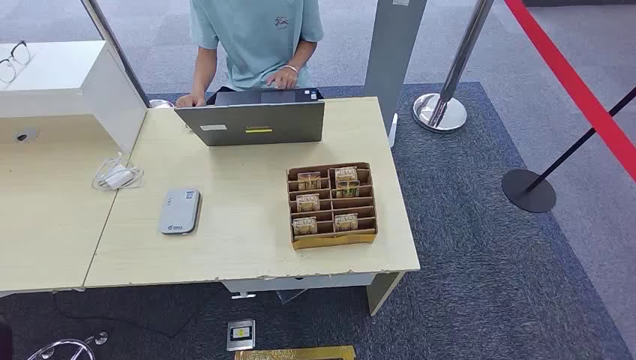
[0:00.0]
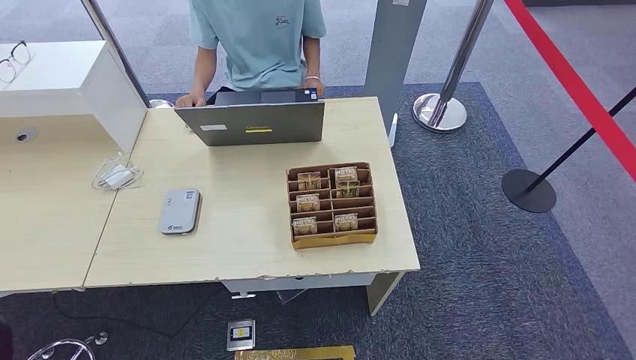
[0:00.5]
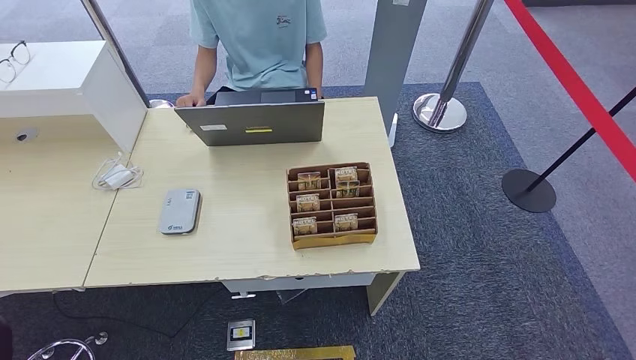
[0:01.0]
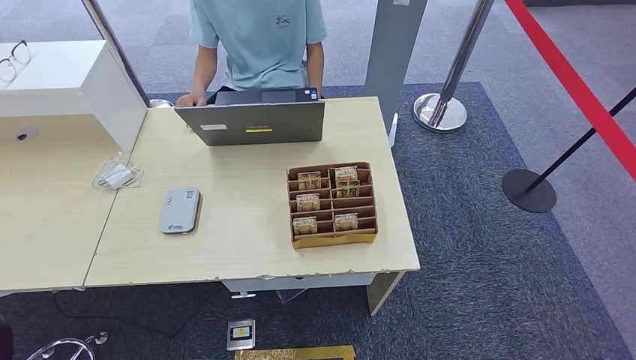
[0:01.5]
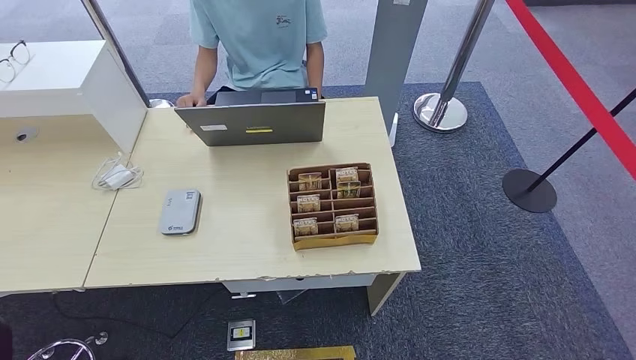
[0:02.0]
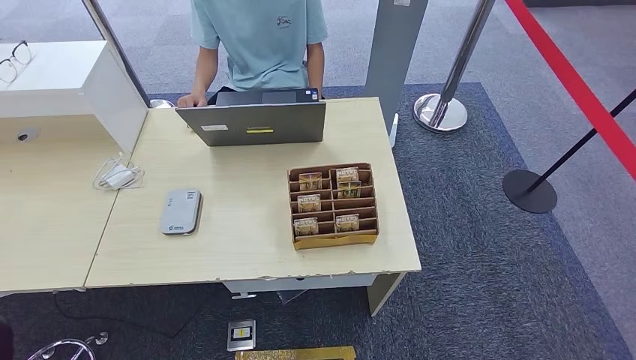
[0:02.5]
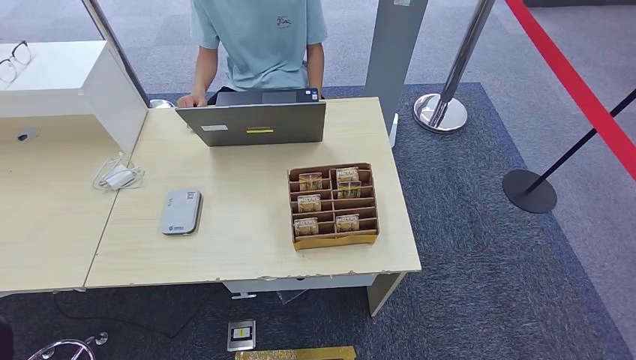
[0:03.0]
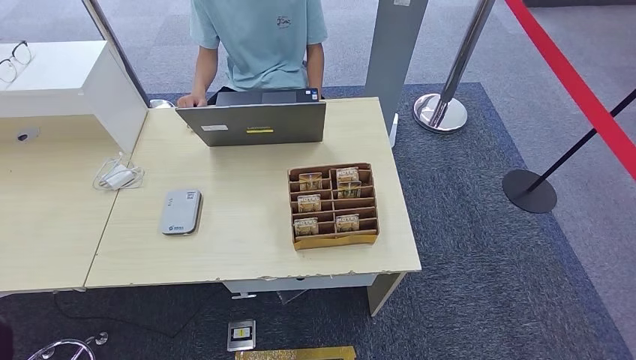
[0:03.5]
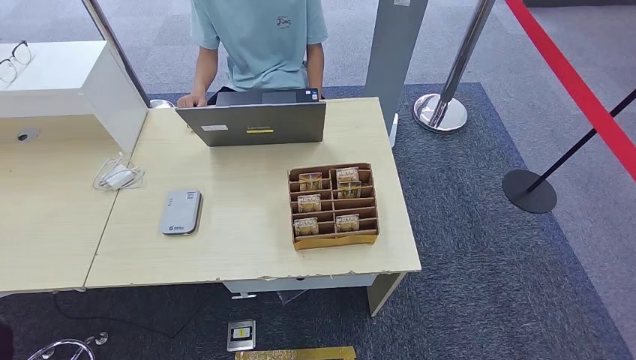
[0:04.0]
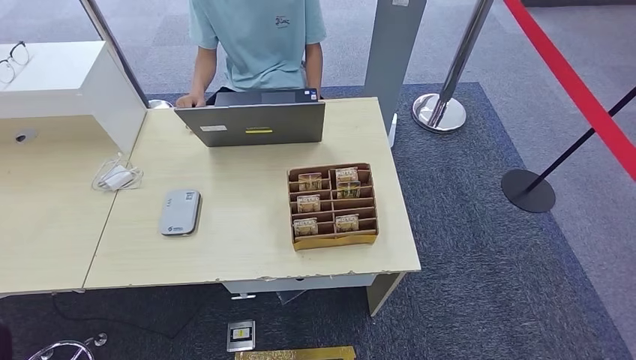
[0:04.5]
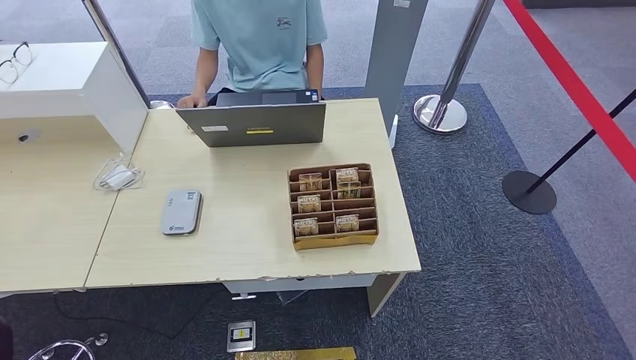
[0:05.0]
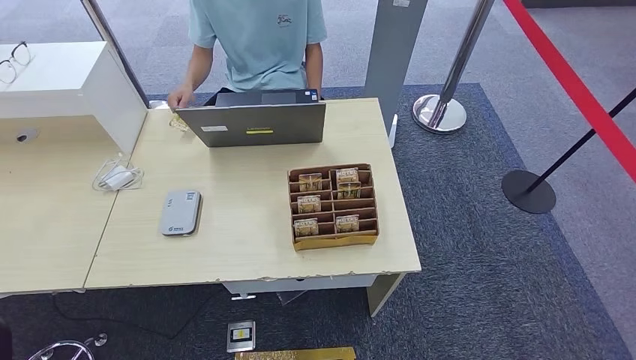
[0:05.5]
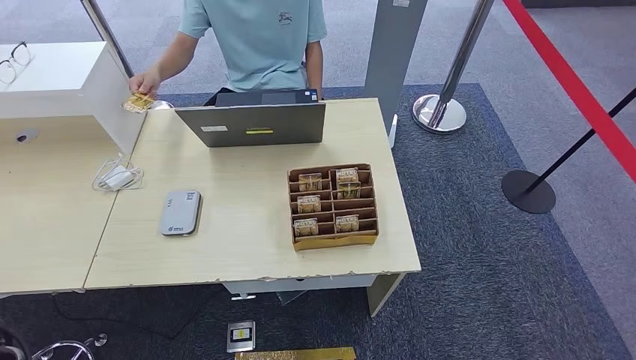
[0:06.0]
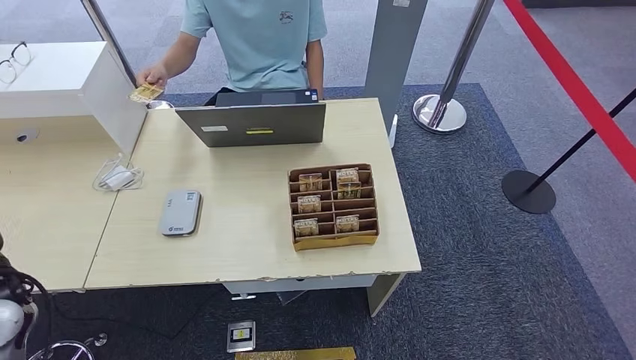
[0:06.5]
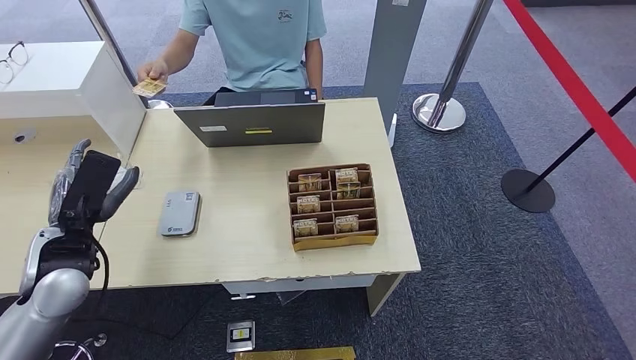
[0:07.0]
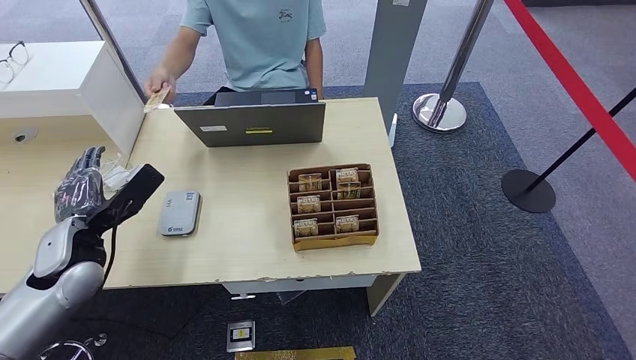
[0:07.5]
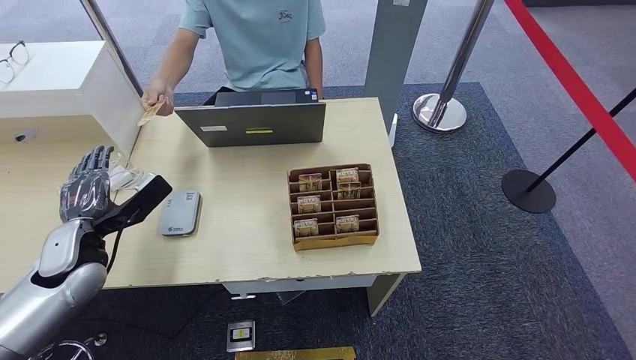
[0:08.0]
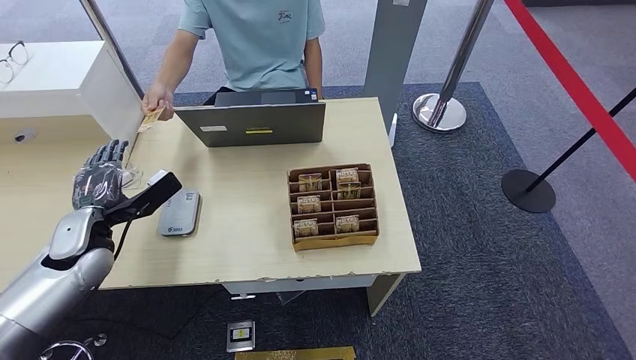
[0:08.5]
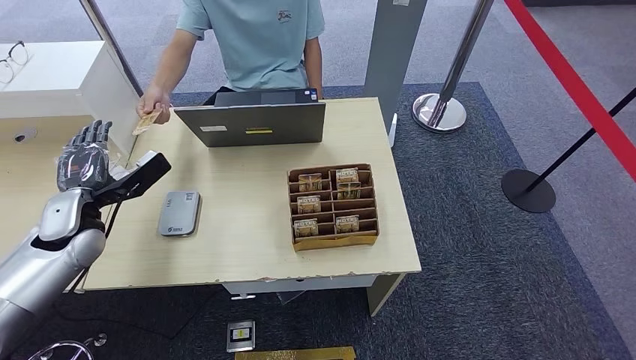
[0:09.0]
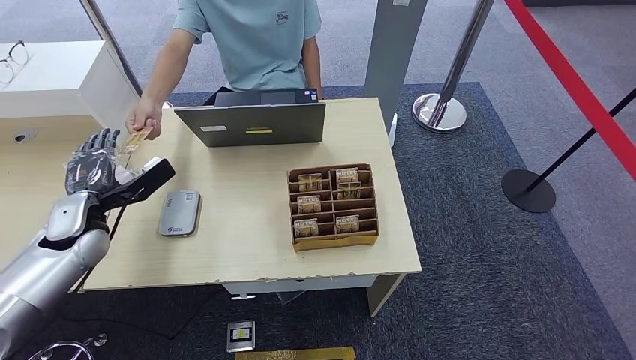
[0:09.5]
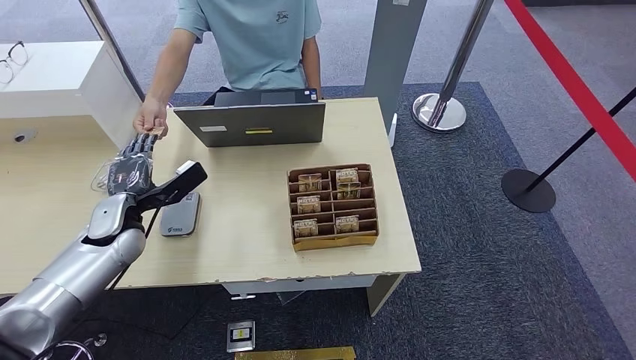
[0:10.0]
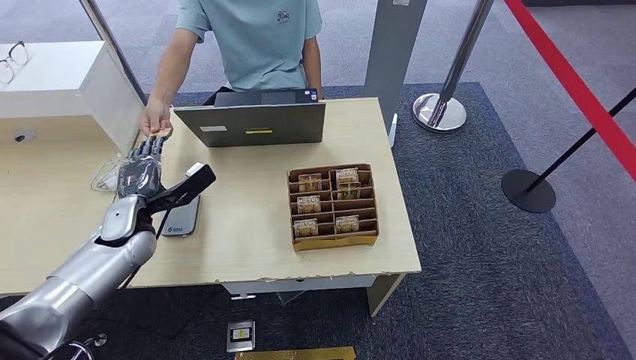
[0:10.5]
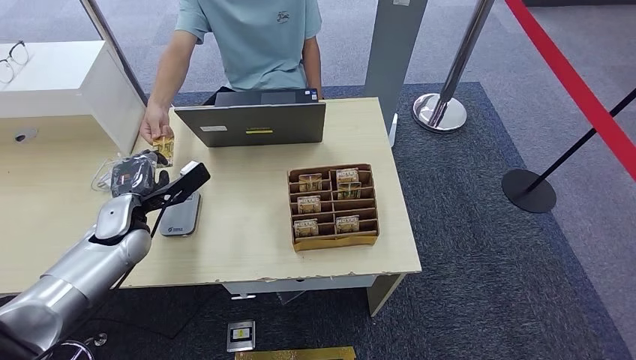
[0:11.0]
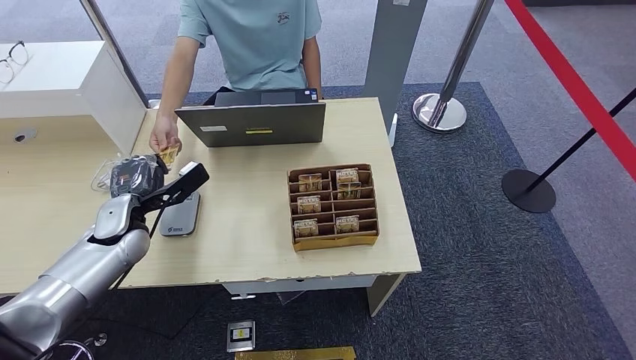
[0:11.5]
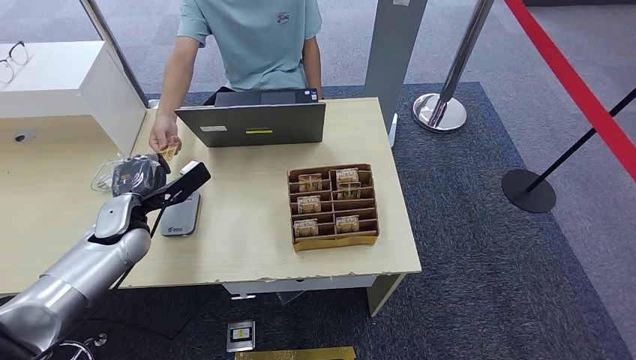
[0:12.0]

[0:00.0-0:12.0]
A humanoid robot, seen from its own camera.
0:04.0 to 0:06.0: The left hand moves upward and forward, some 30 cm.
0:06.0 to 0:08.0: The left hand is displaced forward and to the right by roughly 15 cm.
0:08.0 to 0:10.0: The left hand heads forward, covering approximately 5 cm.
0:10.0 to 0:12.0: The hands move only a little.

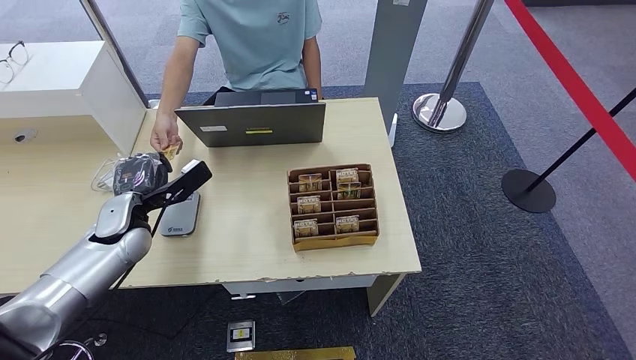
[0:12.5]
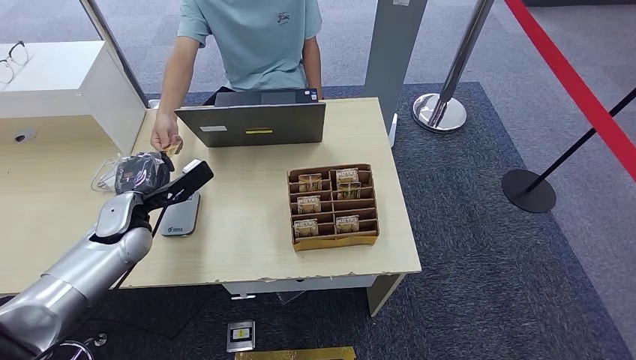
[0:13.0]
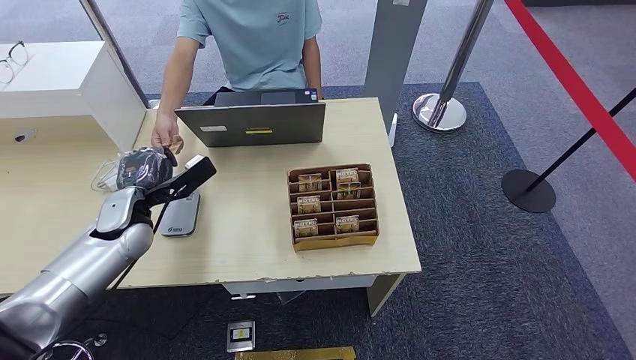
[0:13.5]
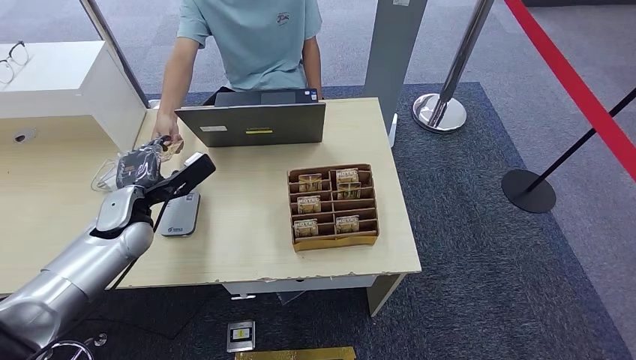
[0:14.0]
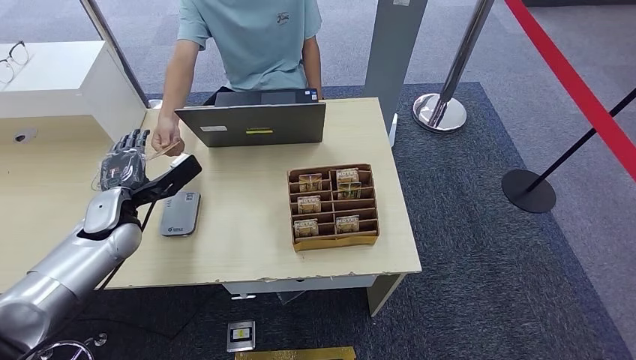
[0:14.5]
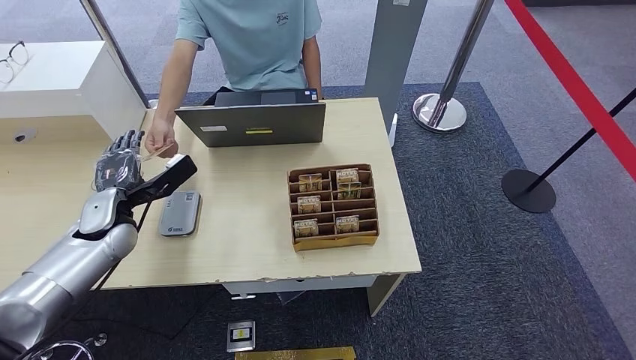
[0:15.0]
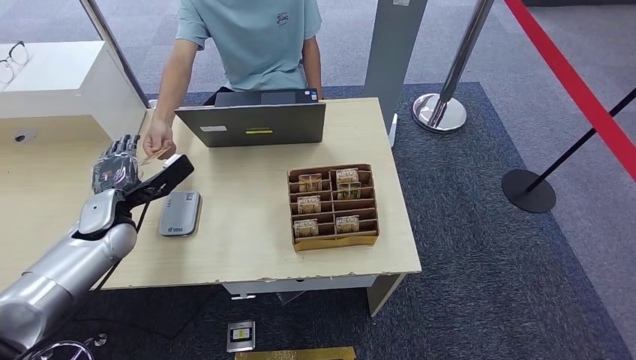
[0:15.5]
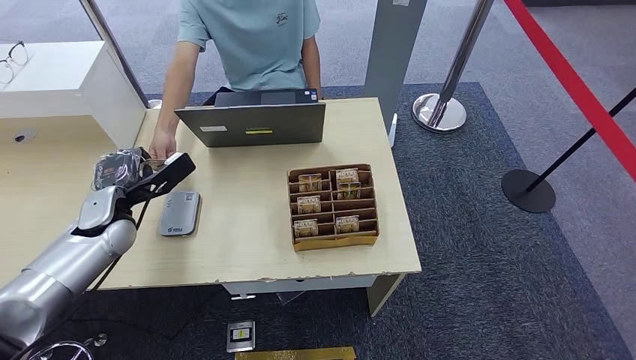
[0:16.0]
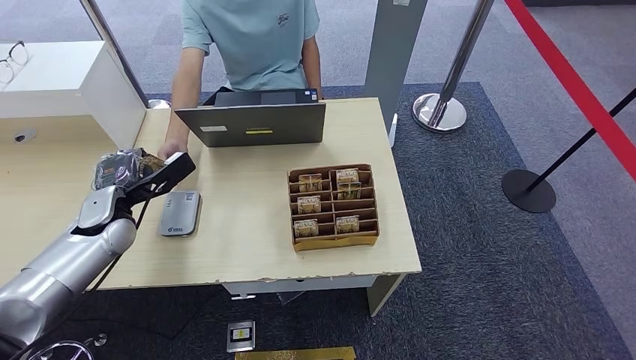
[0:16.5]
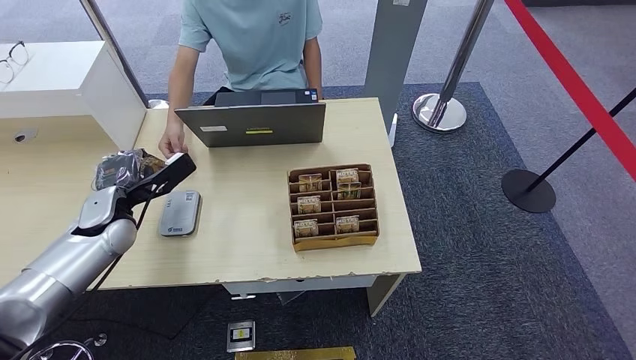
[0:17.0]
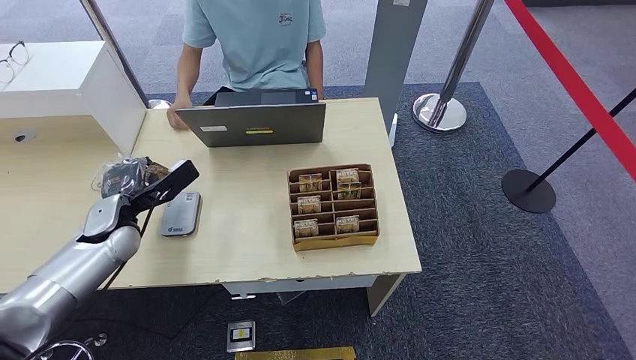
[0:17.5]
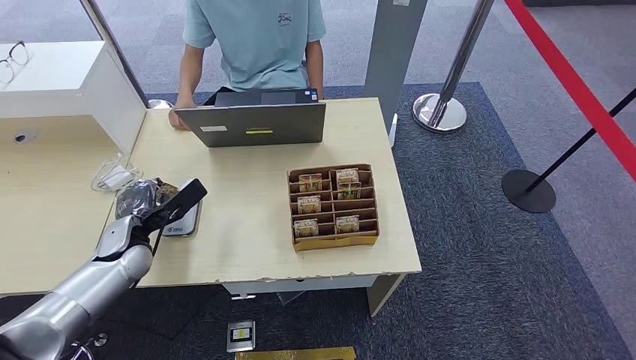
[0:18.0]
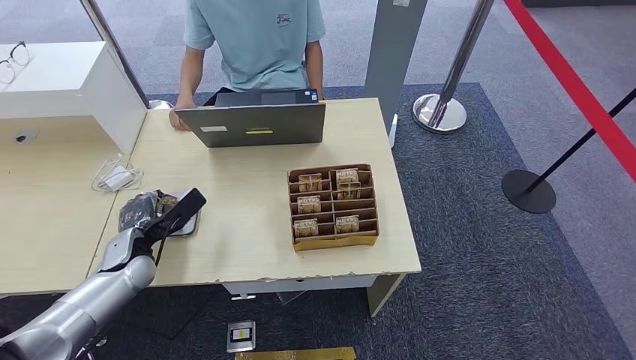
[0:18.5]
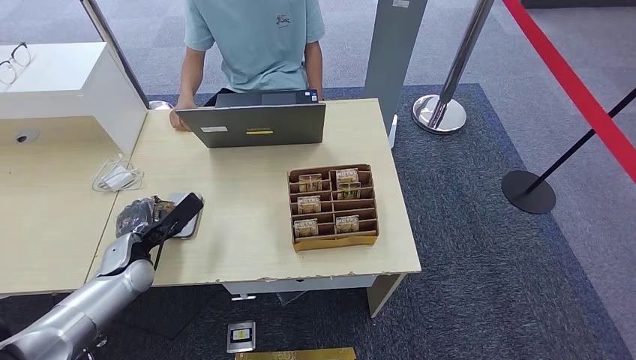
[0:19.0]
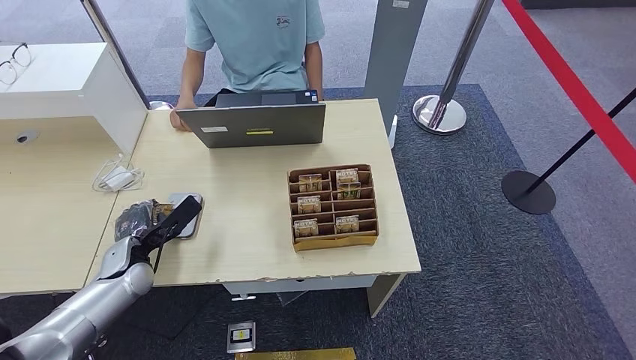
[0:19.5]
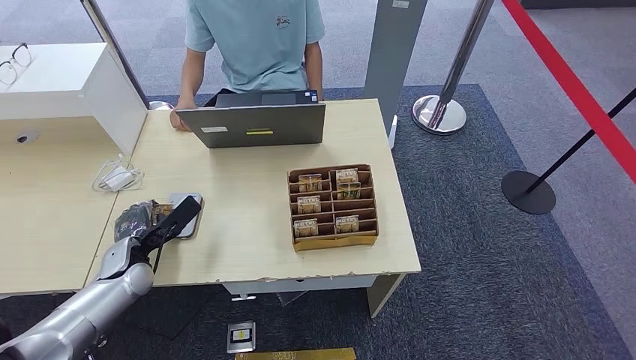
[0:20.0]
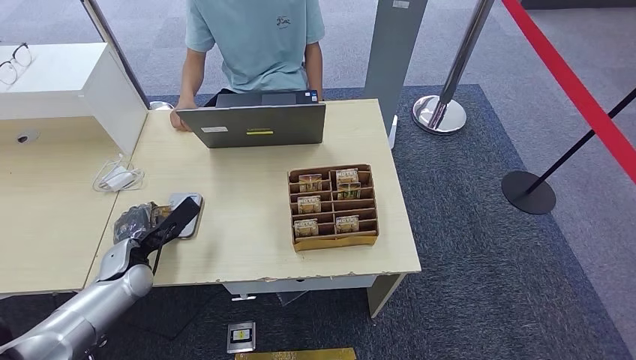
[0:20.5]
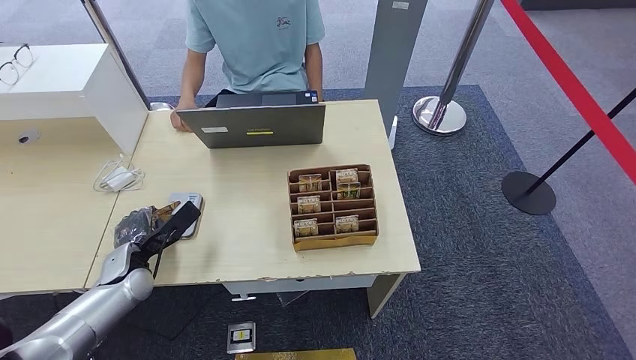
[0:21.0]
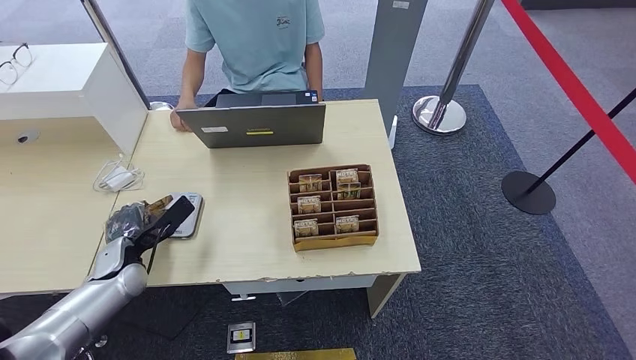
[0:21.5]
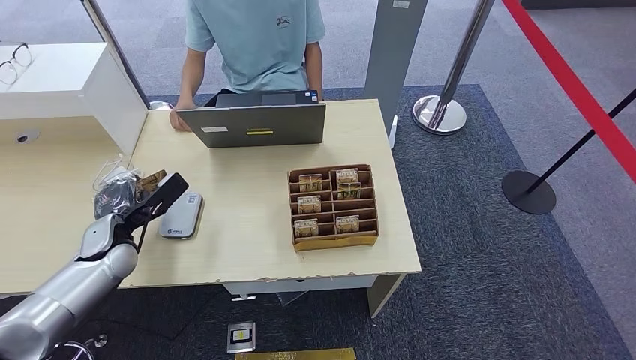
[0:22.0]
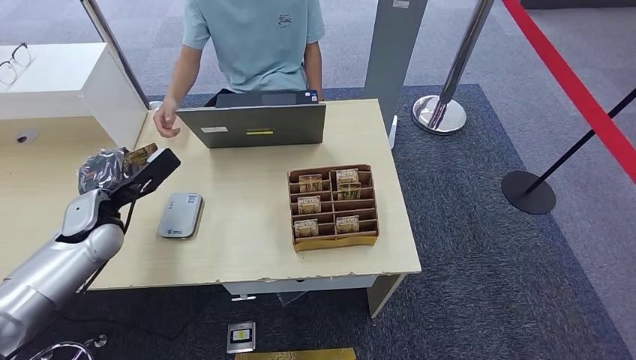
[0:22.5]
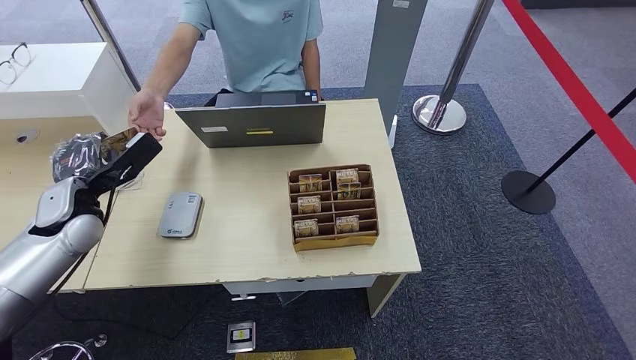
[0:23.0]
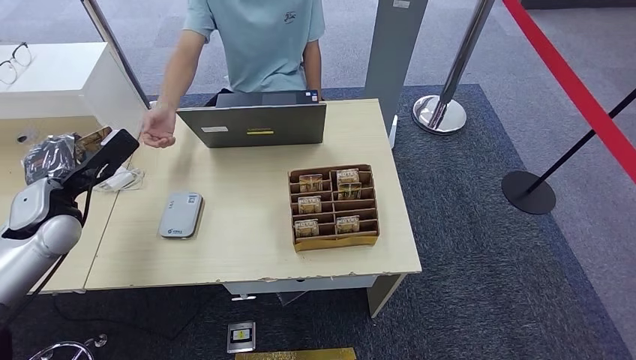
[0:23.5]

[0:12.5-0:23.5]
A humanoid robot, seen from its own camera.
Step, 0:12.5 to 0:16.5: Take the ID card from the person's hand.
Step, 0:17.0 to 0:19.0: Place the ID card on the card reader.
0:12.5 to 0:16.0: The hands make only small movements.
0:16.0 to 0:18.0: The left hand is displaced downward by some 5 cm.
0:18.0 to 0:20.0: The left hand moves approximately 5 cm.
0:20.0 to 0:21.5: Both hands stay about where they are.
0:21.5 to 0:23.5: The left hand heads upward, covering roughly 15 cm.
